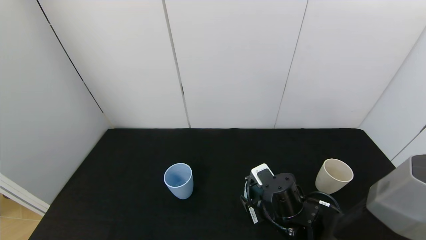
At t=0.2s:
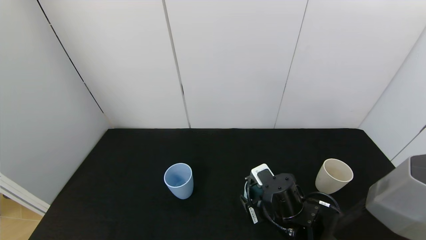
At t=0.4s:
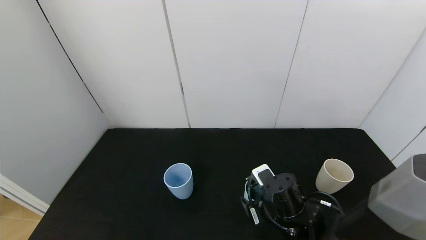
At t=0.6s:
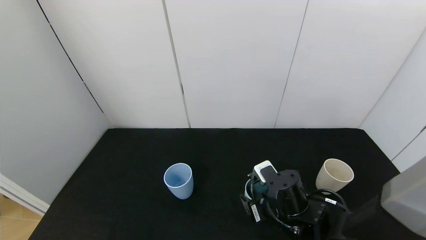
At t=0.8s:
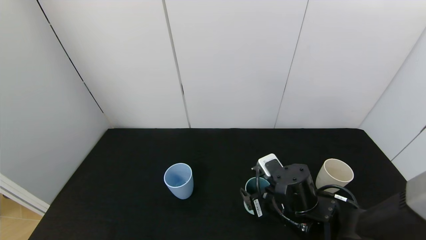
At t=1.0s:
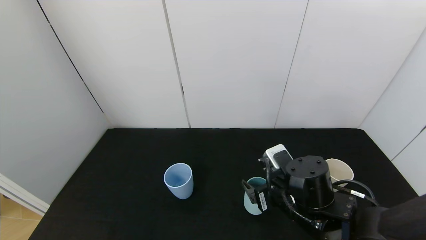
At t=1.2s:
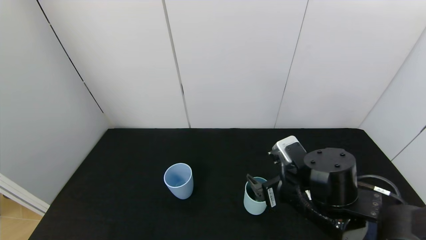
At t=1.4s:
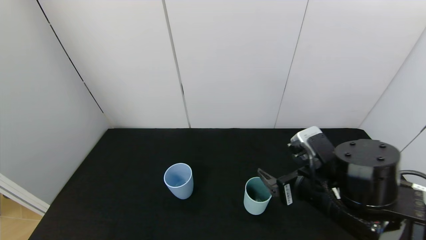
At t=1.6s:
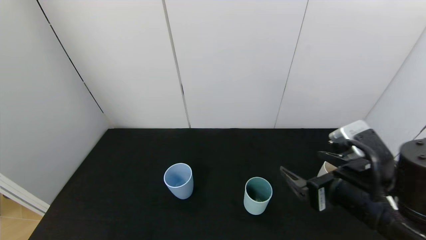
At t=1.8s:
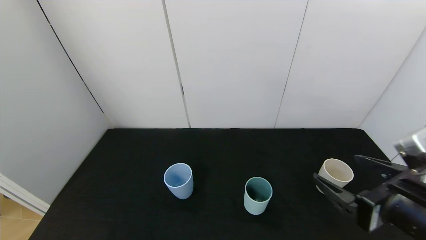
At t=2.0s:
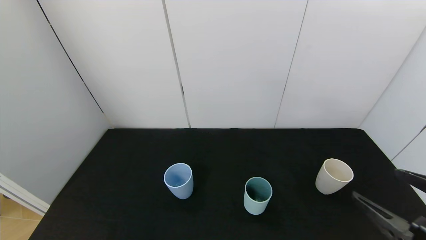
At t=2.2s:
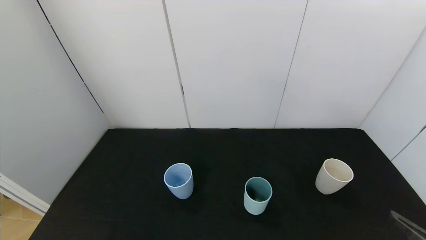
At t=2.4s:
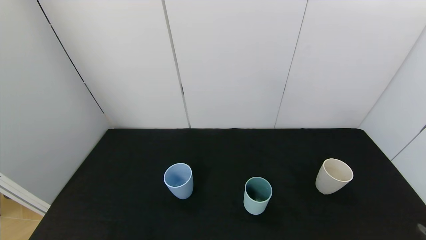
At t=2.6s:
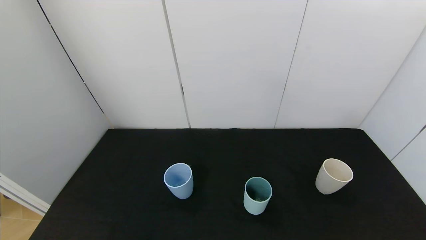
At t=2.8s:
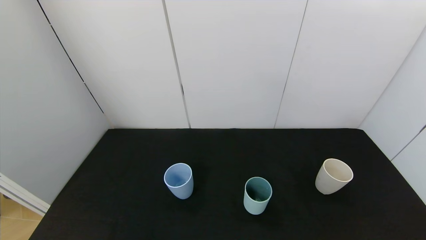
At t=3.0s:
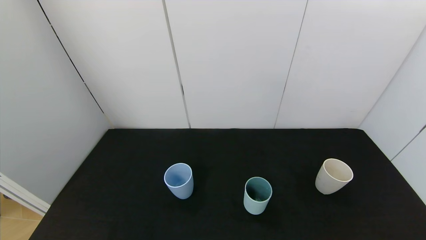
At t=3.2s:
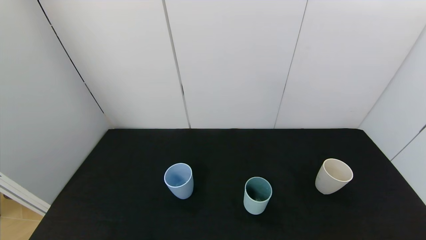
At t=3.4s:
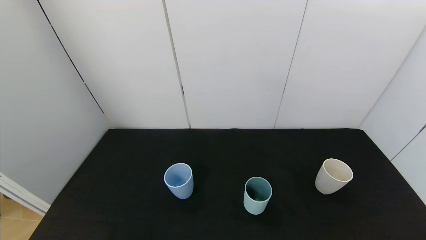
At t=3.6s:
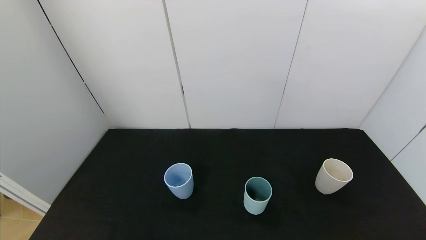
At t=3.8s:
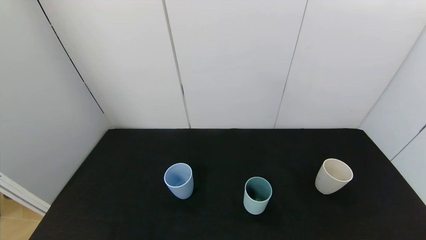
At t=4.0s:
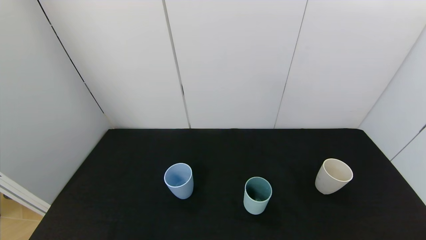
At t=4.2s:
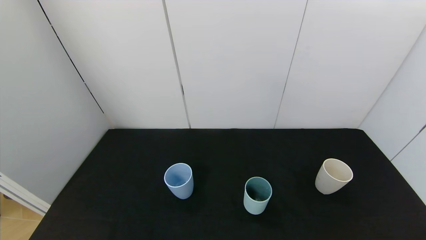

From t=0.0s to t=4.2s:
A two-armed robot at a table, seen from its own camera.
Task of the whole recording: use the gripper to pour the water into the other two cups on black table.
From t=0.0s to t=1.4s: The right gripper moves upward, some 10 cm, and opens.
From t=1.4s to t=2.8s: The right gripper is displaced backward and to the right by some 25 cm.

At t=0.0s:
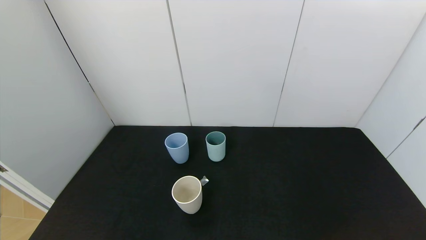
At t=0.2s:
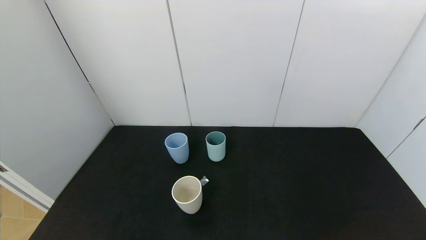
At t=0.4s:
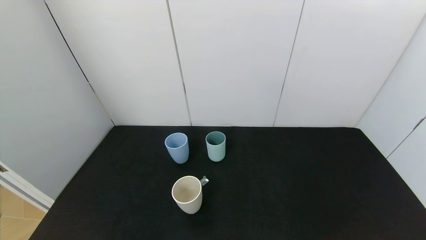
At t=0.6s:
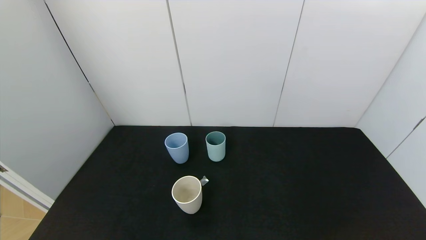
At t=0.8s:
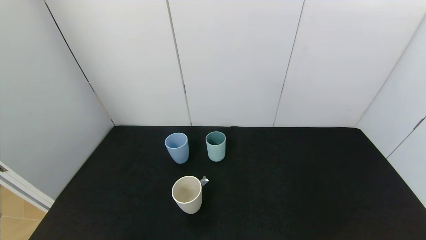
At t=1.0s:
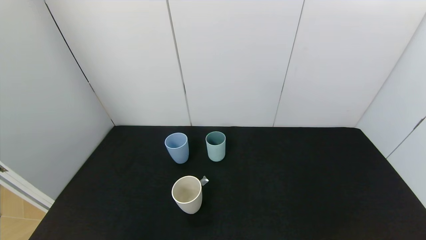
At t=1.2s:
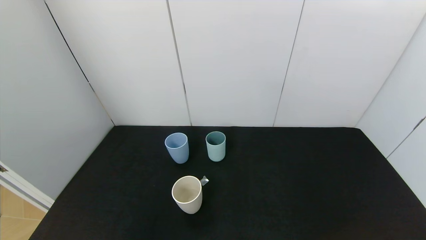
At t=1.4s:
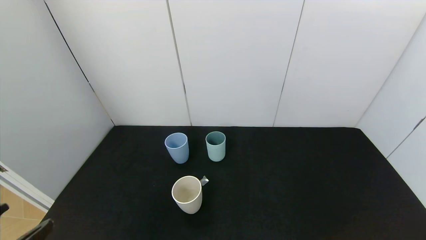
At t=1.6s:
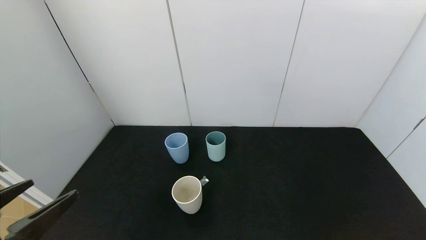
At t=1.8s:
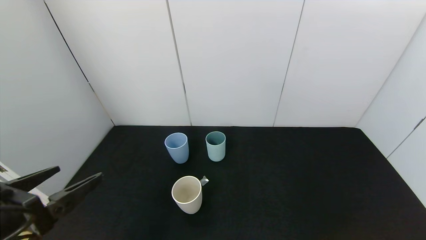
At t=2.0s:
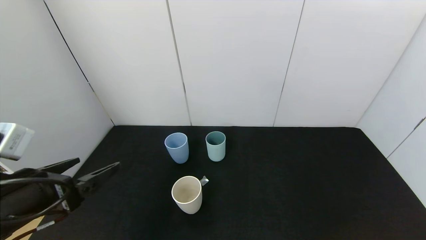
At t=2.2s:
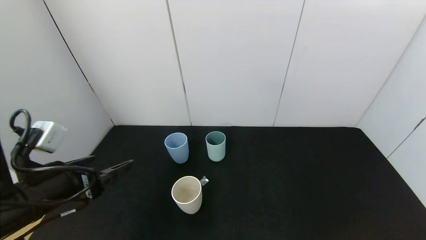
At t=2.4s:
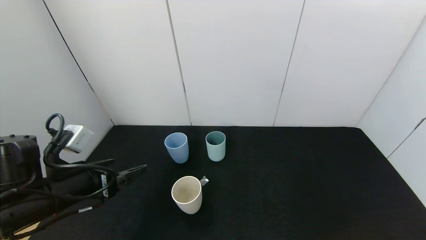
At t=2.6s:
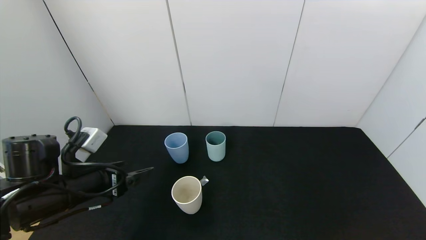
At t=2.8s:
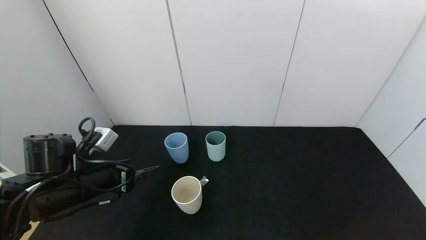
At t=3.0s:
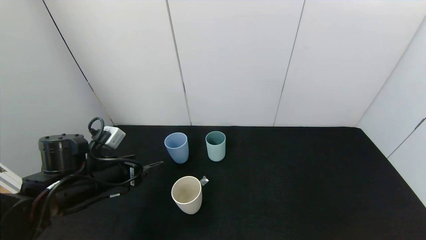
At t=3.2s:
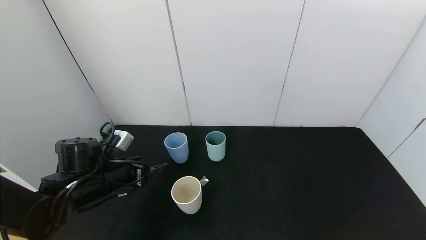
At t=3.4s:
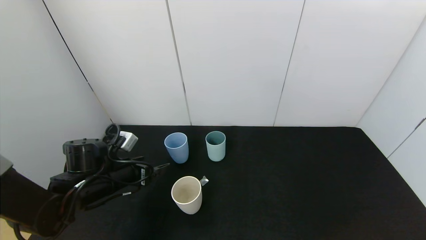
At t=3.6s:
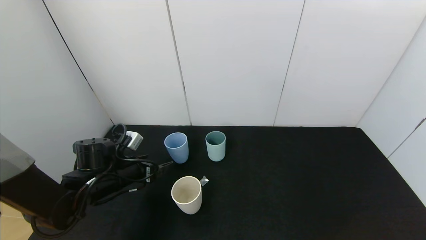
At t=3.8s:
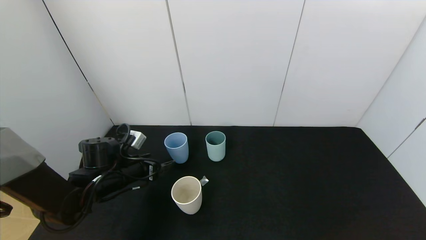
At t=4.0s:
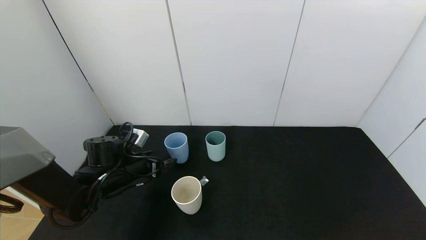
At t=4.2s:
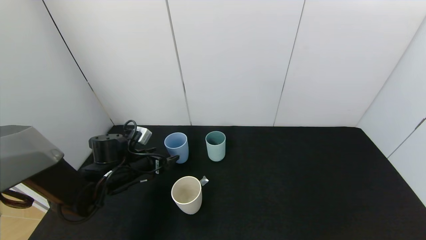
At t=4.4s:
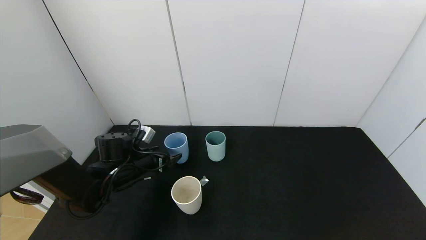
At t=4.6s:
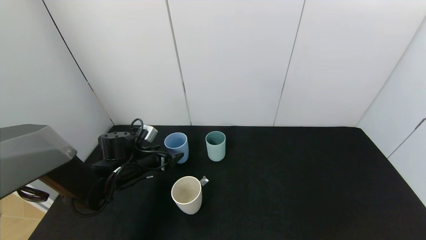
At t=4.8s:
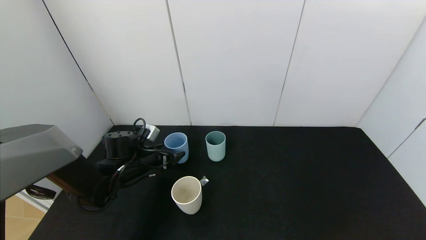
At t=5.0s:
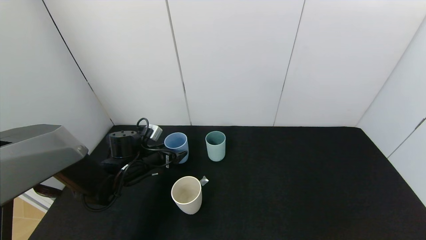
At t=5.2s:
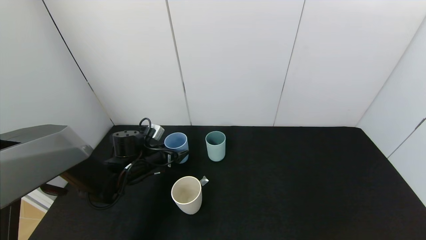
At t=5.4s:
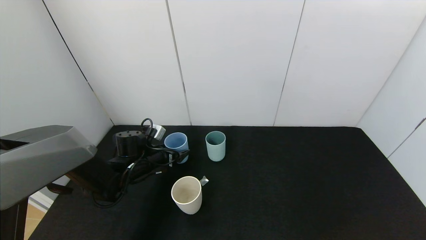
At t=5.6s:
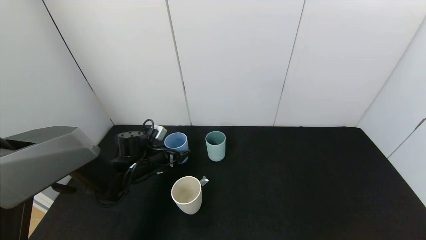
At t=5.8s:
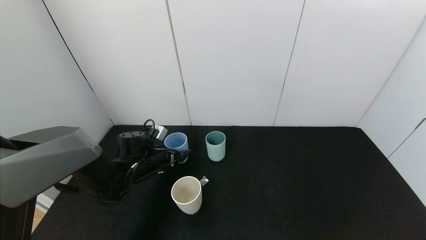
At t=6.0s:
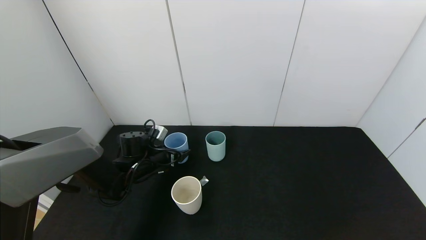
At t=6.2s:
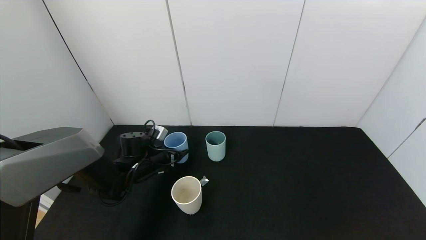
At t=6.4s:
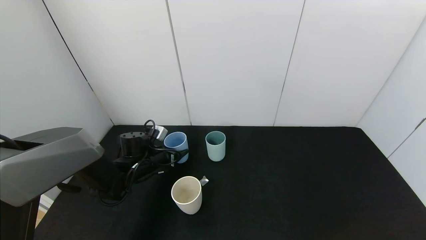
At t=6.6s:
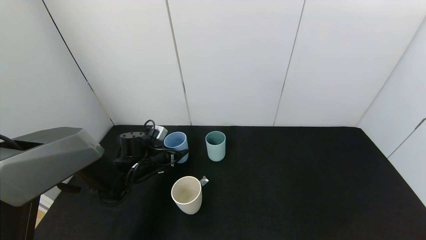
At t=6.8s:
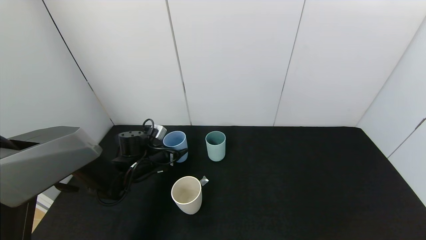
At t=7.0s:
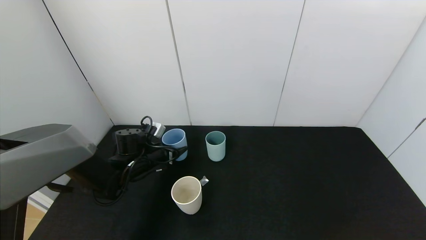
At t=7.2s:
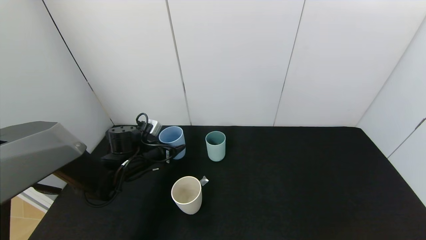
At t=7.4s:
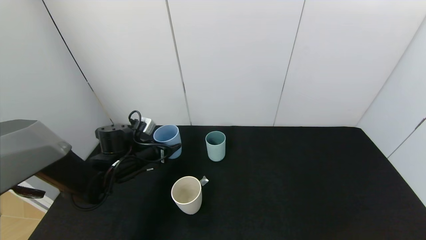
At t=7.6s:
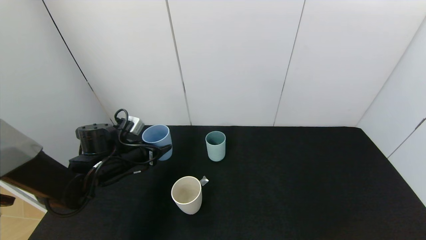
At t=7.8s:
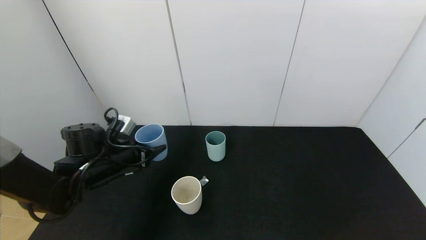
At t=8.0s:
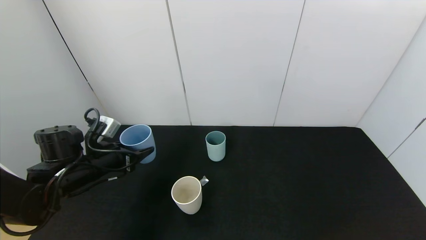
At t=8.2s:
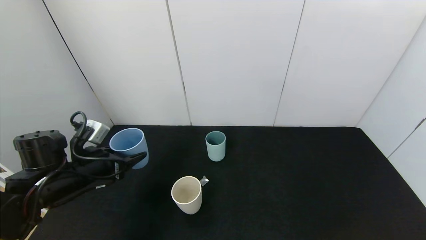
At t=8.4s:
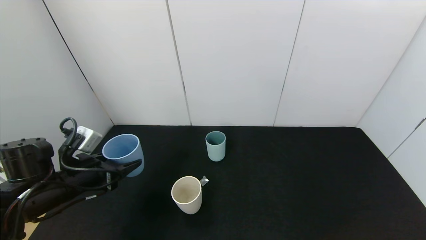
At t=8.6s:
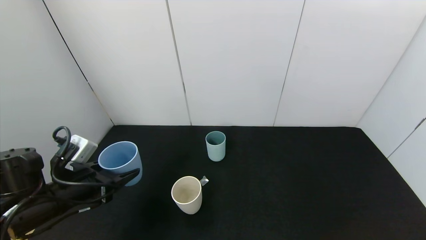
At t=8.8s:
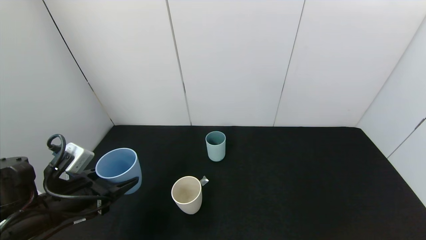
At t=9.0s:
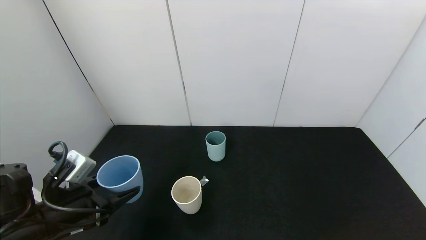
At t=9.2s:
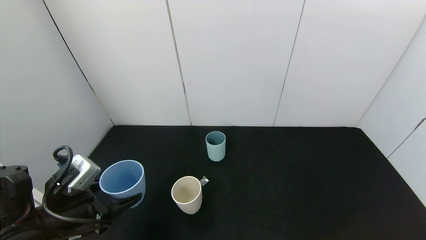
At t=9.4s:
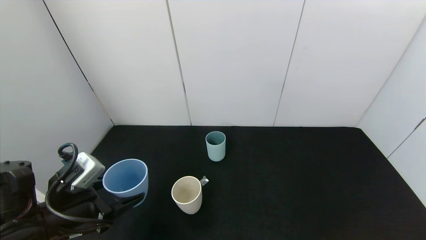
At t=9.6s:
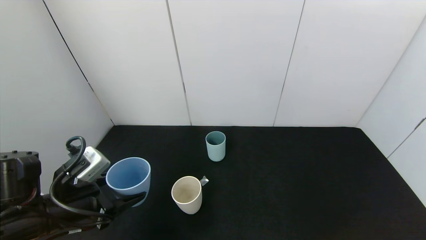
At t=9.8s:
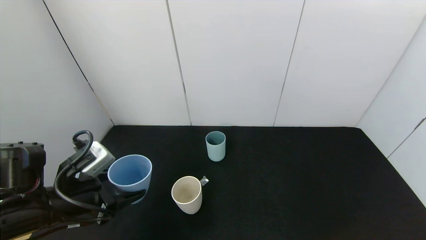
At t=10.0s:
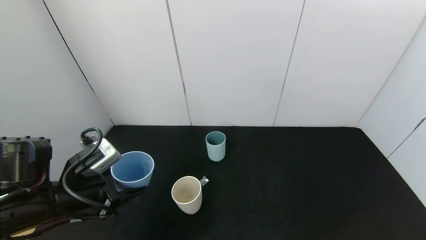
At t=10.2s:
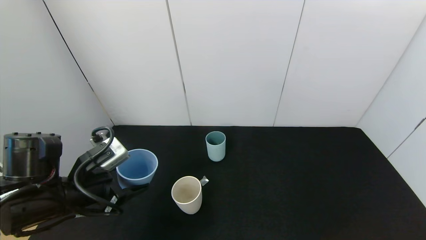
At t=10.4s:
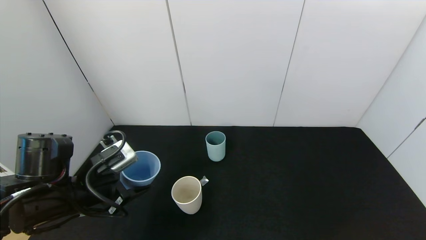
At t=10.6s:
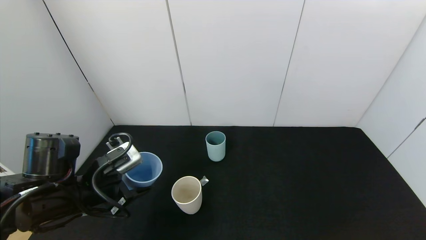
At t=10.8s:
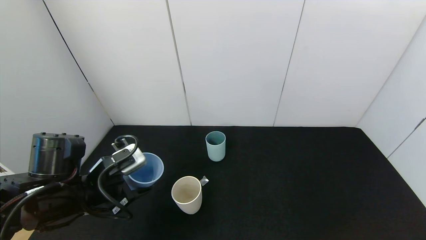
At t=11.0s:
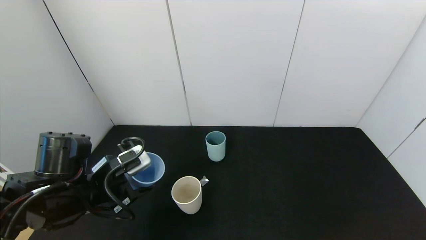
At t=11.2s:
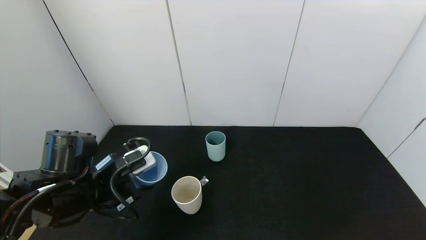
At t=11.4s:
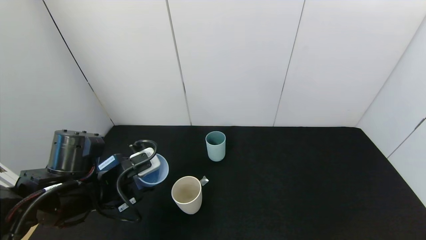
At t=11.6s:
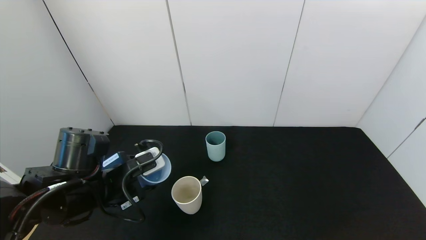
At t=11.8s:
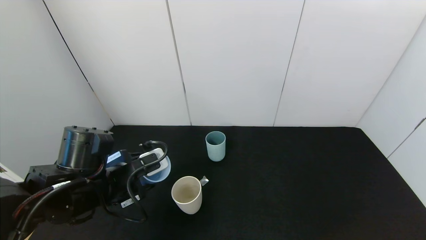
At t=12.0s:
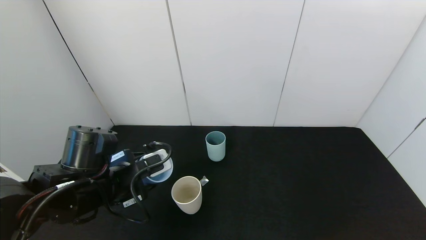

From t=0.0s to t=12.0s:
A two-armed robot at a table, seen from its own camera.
Task of the whole recording: use the gripper to pour the water into the other two cups on black table.
Step, from t=0.0s to t=6.4s: Grasp the blue cup with the left gripper.
From t=0.0s to t=1.6s: The left gripper travels upward and forward by roughly 15 cm.
From t=1.6s to t=3.0s: The left gripper is displaced forward by about 20 cm.
From t=3.0s to t=4.4s: The left gripper goes approximately 10 cm forward and downward.
From t=4.4s to t=6.0s: The left gripper ends up some 5 cm from where it was, and closes up.
From t=6.0s to t=7.6s: The left gripper is displaced upward and backward by approximately 10 cm, and closes its fingers.
From t=7.6s to t=9.0s: The left gripper heads backward, covering approximately 15 cm.
From t=9.0s to t=10.4s: The left gripper shifts by roughly 5 cm.
